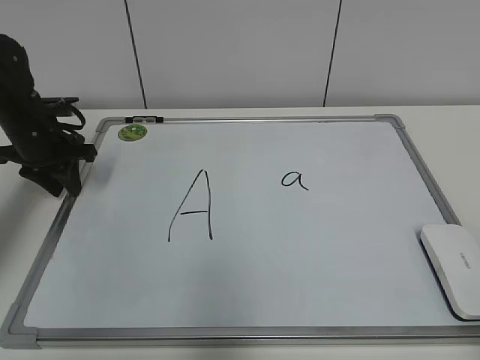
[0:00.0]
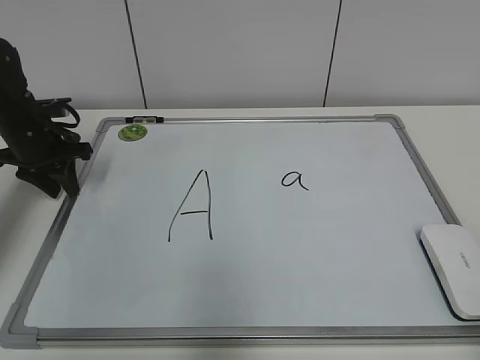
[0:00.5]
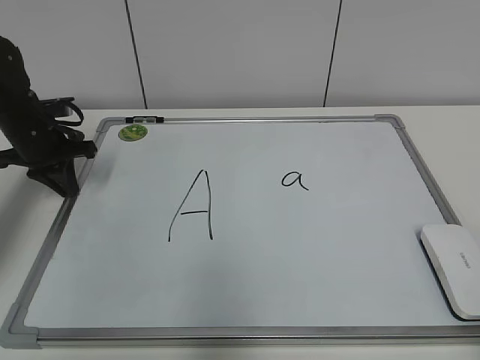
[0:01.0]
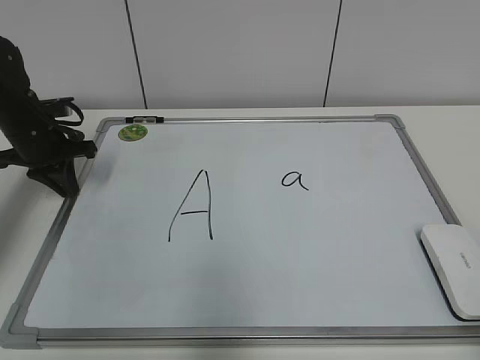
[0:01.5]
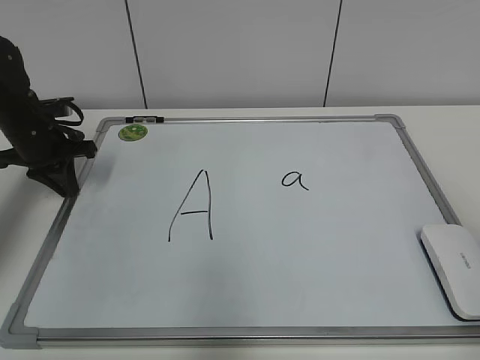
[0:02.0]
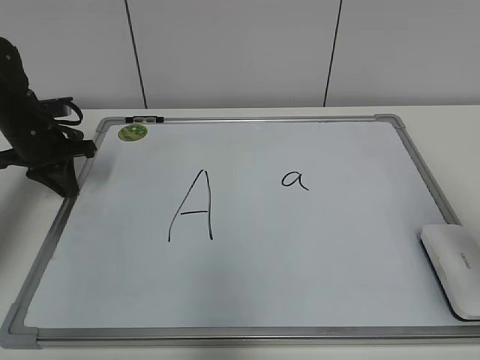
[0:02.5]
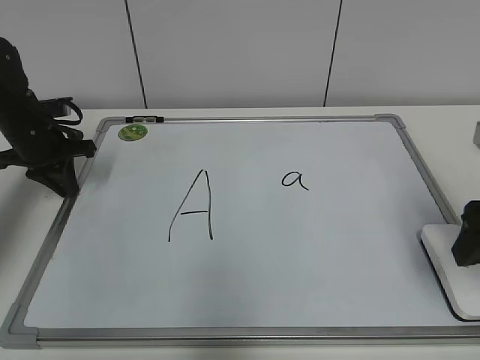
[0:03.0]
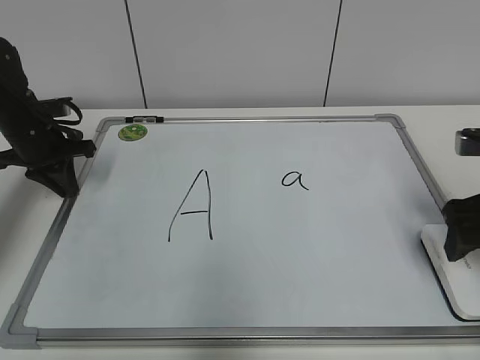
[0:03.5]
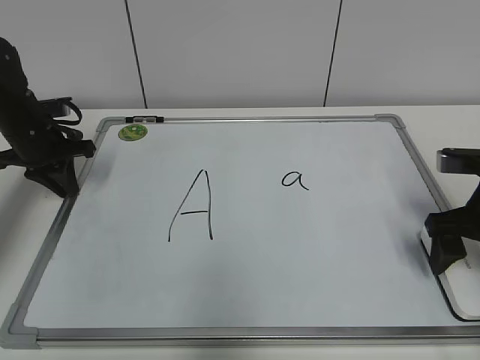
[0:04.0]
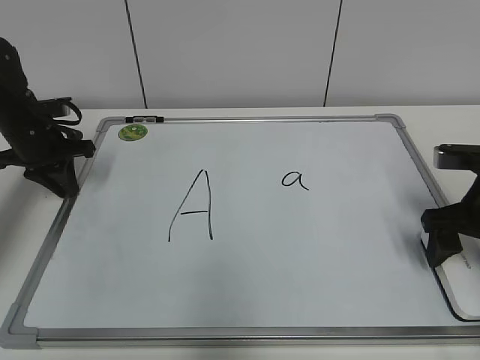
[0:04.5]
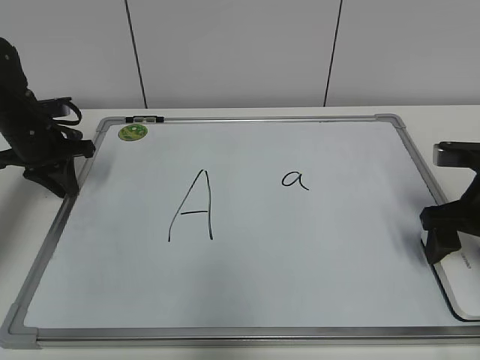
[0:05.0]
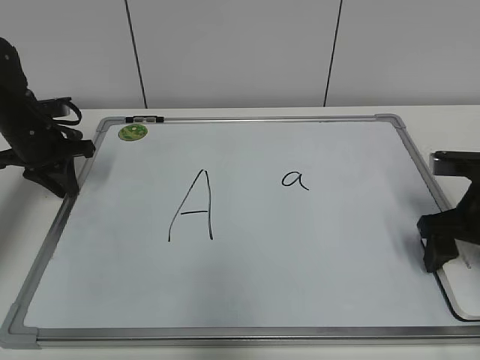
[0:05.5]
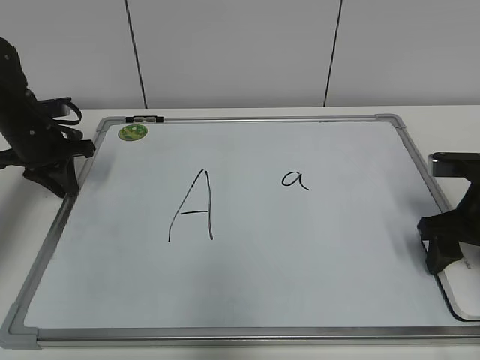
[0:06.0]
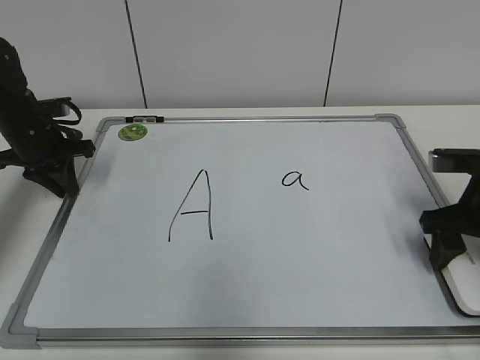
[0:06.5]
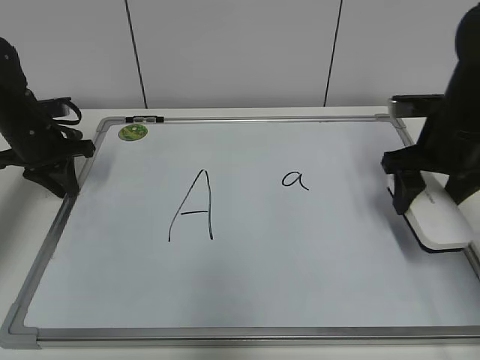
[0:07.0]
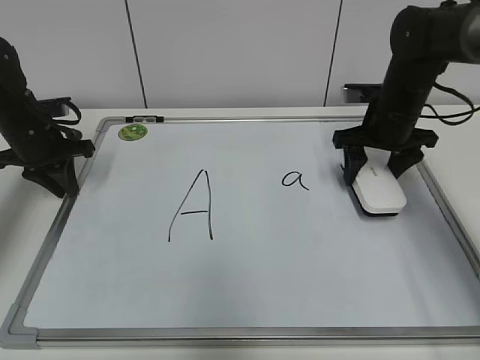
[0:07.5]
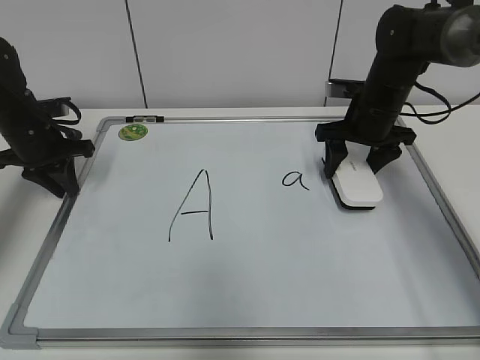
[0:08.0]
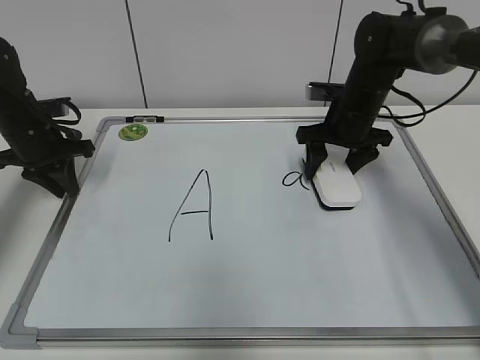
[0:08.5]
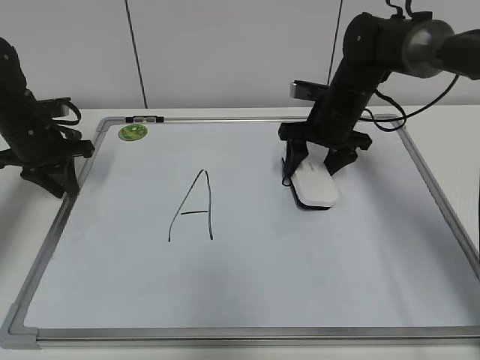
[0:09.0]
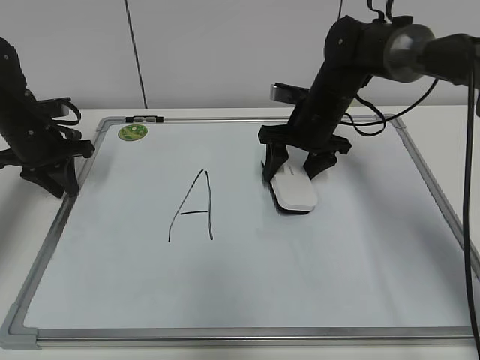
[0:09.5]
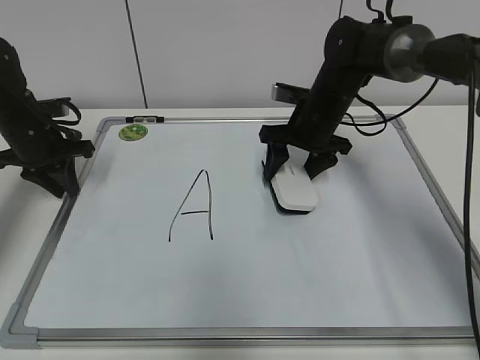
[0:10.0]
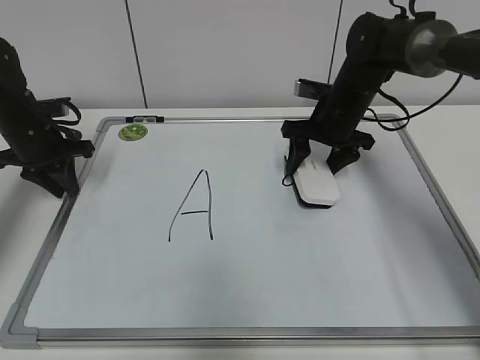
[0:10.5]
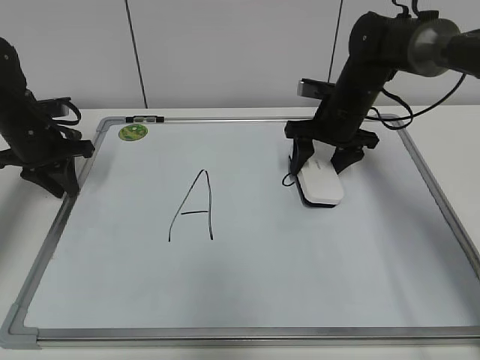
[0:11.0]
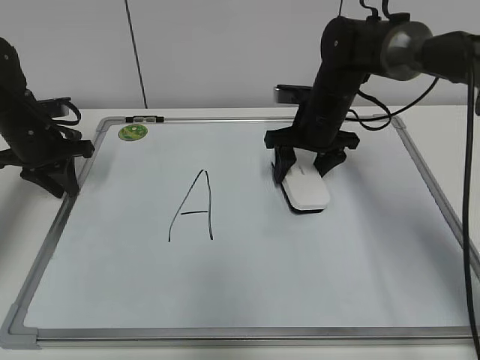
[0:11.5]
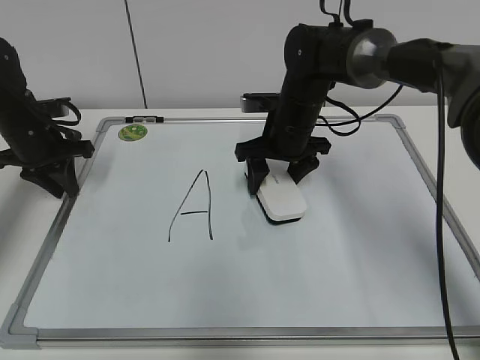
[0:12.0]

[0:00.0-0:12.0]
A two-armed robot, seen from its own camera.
Task of the whole recording: pick up the eraser on the blackboard and erase the letter "a".
Step, 0:01.0 to 0:06.0: Grab the eraser with your right hand.
0:00.0 to 0:02.0: The left gripper closes up.
0:02.0 to 0:04.0: The right gripper moves forward and downward, approximately 25 cm, and opens its fingers.
0:04.0 to 0:06.0: The right gripper closes up.
0:06.0 to 0:08.0: The right gripper goes roughly 20 cm forward and to the left.
0:08.0 to 0:10.0: The right gripper travels to the left by some 5 cm.
0:10.0 to 0:12.0: The right gripper changes place by some 5 cm.

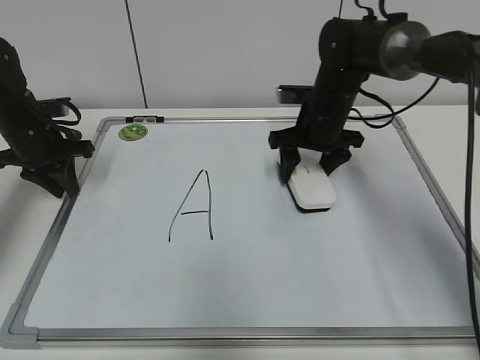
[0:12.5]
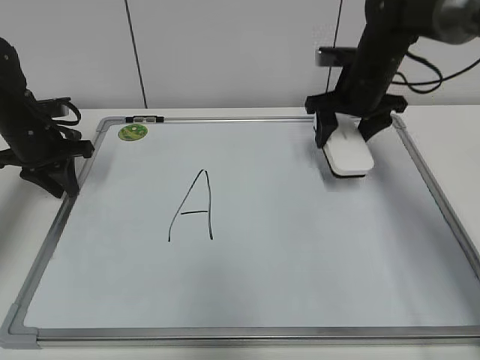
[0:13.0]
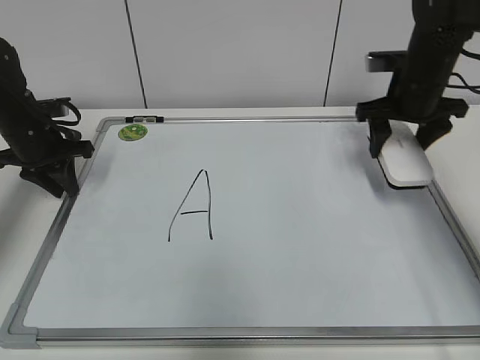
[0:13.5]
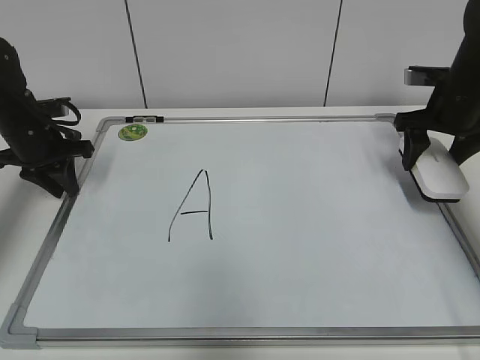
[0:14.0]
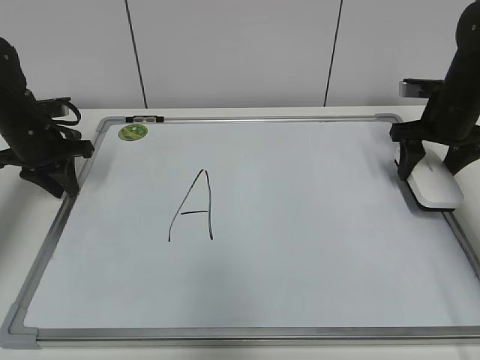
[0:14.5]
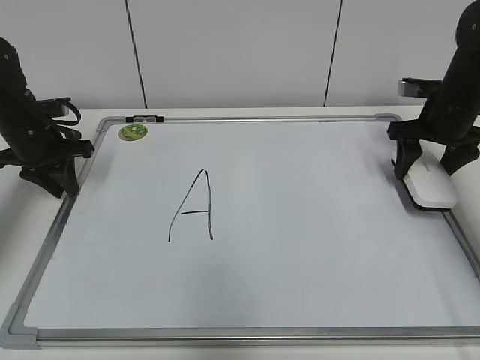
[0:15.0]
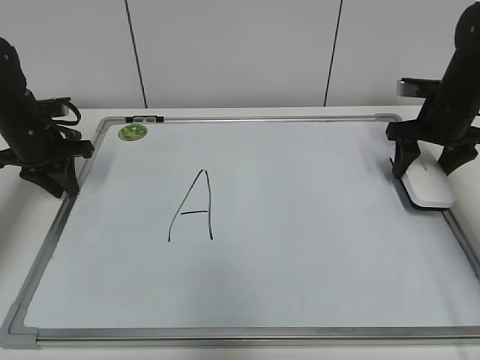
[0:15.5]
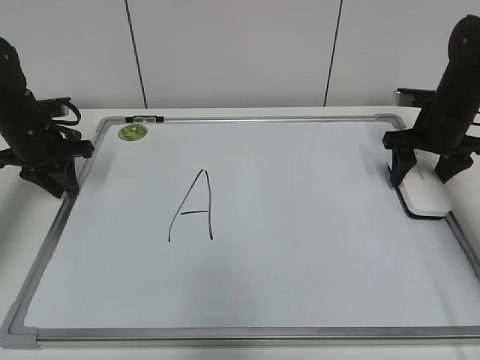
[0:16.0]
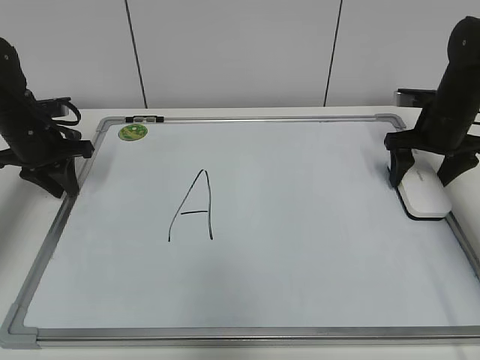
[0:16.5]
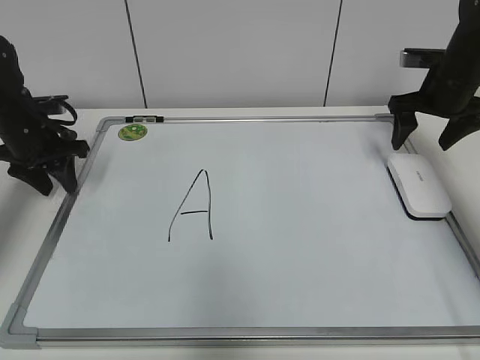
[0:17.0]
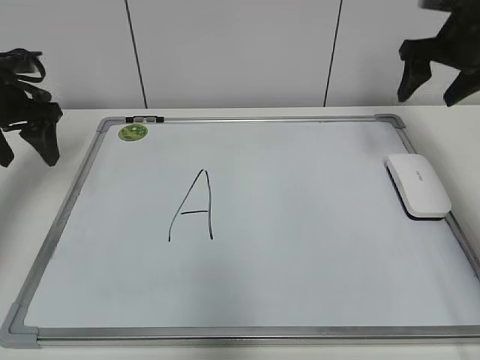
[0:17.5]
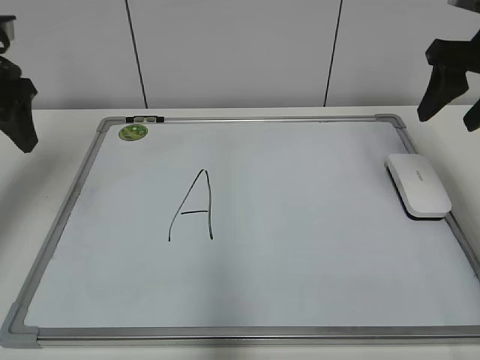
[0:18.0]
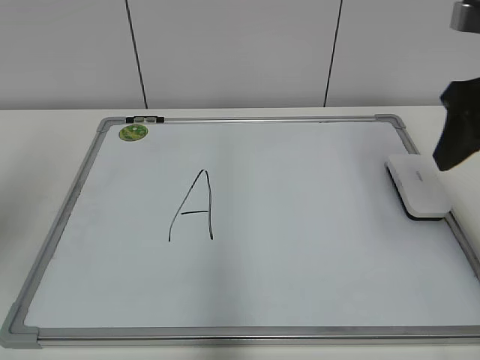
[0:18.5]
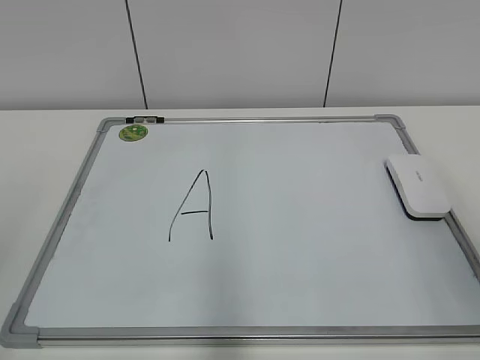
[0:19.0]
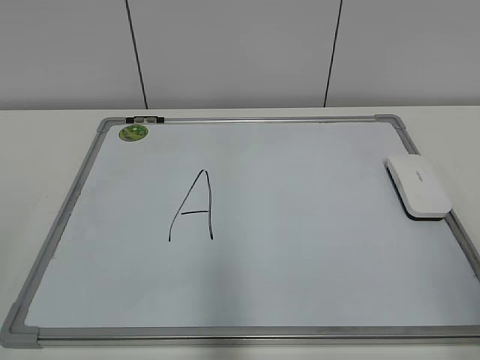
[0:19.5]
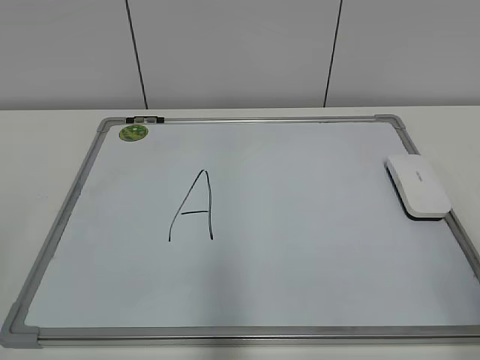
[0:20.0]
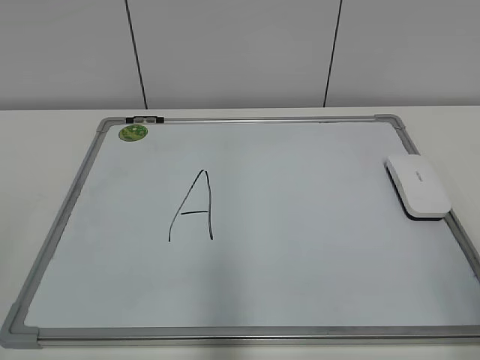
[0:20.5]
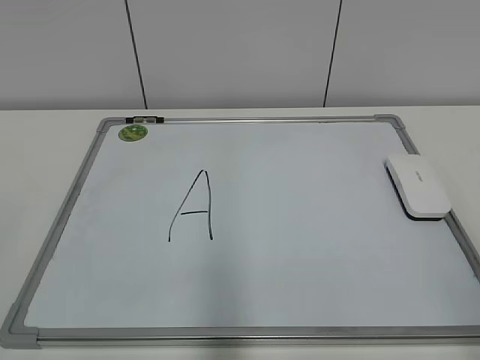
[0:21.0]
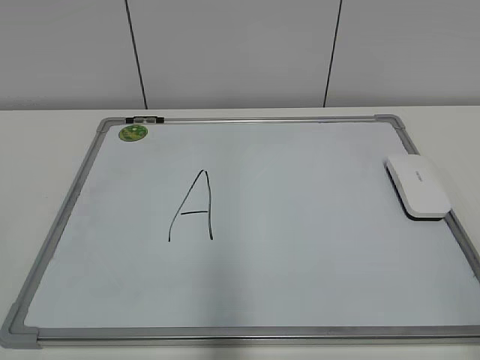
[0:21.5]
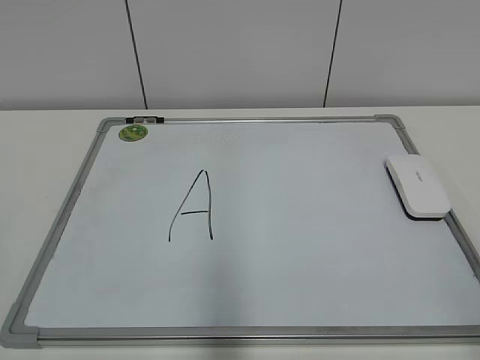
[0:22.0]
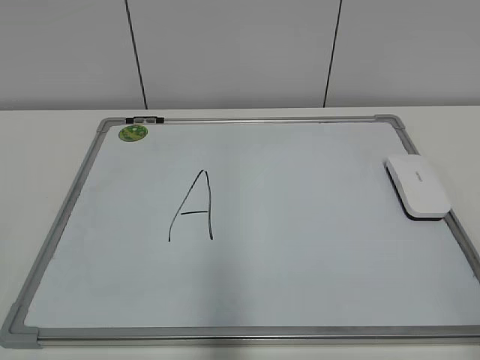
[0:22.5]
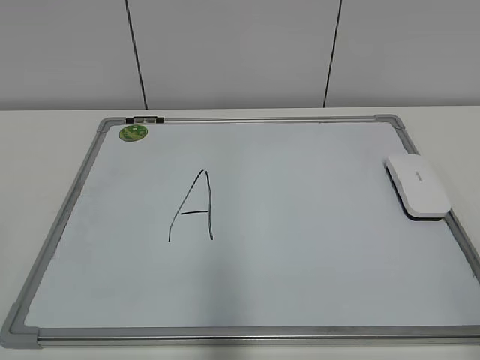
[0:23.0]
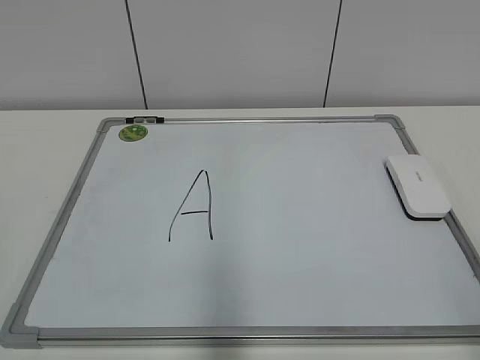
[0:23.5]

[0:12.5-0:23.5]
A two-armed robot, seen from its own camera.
Task of the whole recording: pick up the eraser on the blackboard and erase the letter "a".
Step, 0:12.5 to 0:15.5: Put down the eraser with your right hand.
0:12.5 to 0:14.5: The right gripper shifts approximately 15 cm to the right.
0:14.5 to 0:16.0: There are only small adjustments of the grippers.
0:16.0 to 0:18.0: The grippers both shift upward and backward by some 20 cm. The right gripper opens and closes again. Meanwhile the left gripper opens.
0:18.0 to 0:20.0: The two grippers go some 30 cm backward.
0:21.5 to 0:23.5: Both grippers stay about where they are.

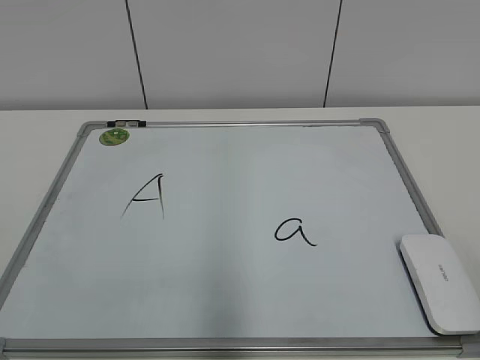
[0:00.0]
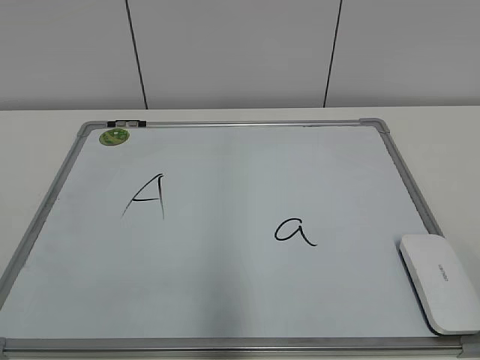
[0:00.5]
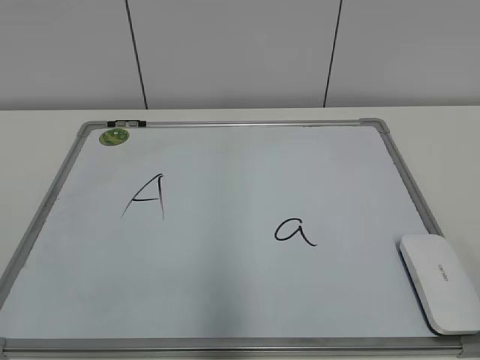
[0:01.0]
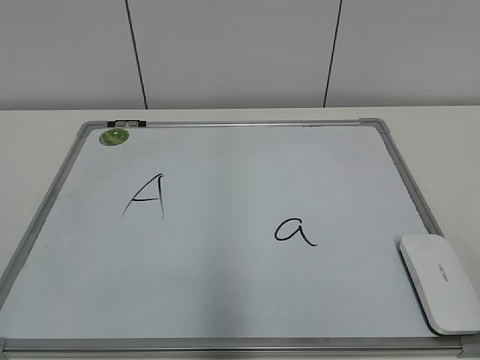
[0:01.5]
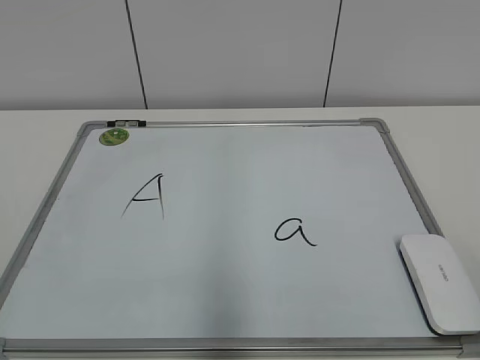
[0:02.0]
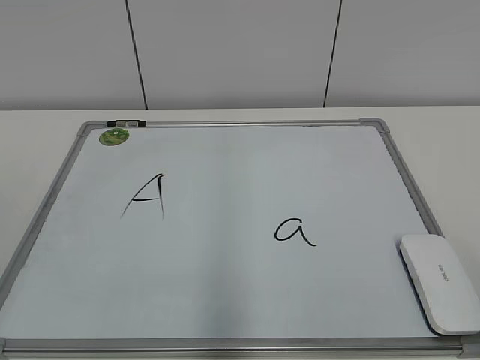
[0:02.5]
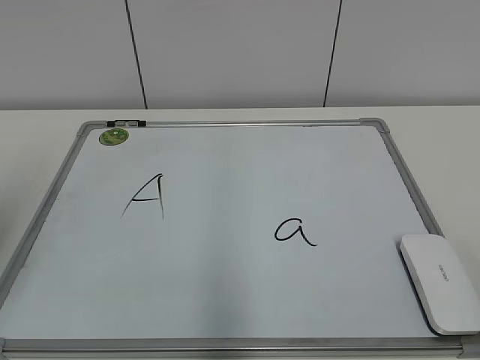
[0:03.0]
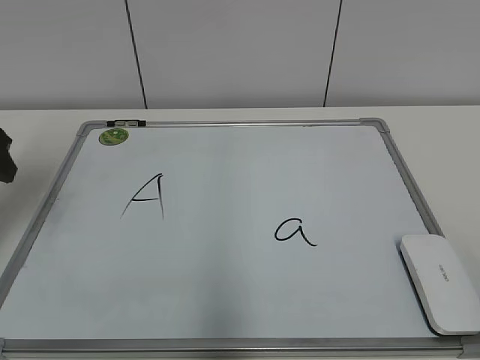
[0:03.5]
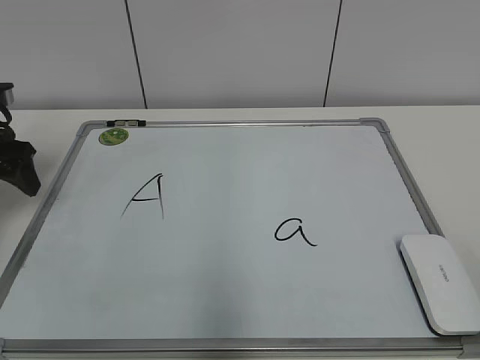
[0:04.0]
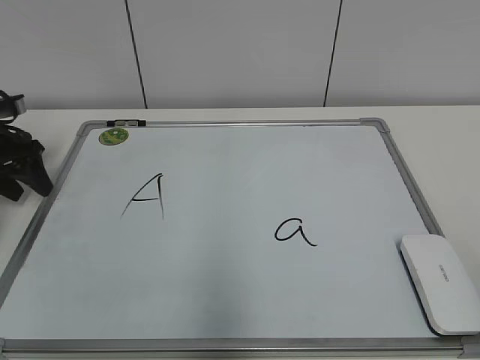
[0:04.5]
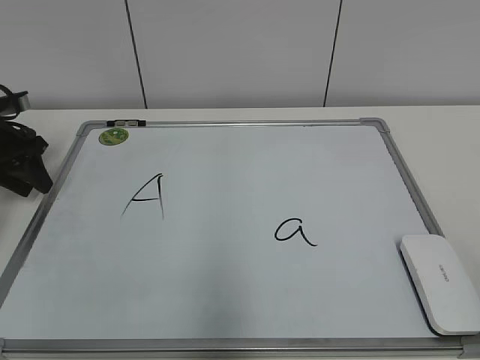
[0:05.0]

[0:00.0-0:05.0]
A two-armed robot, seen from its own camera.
Task of the whole recording: pick up the eraser on the blackboard and erase the letter "a".
0:02.5 to 0:05.0: The left gripper shifts approximately 40 cm forward and downward.
